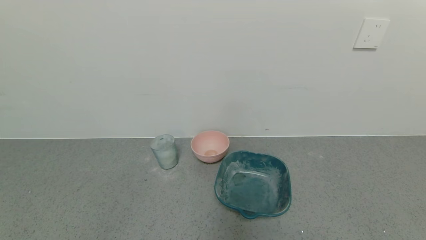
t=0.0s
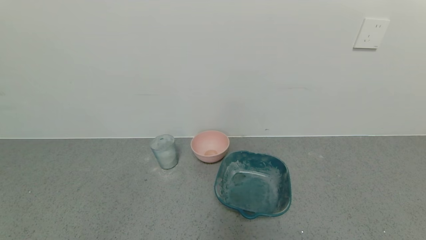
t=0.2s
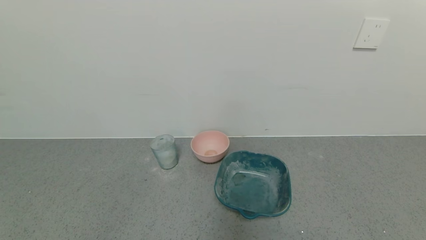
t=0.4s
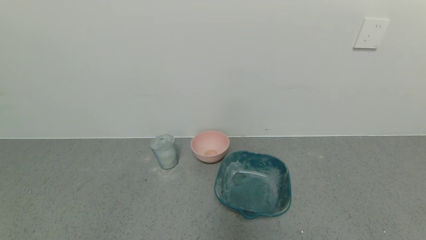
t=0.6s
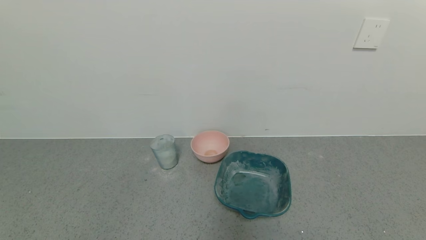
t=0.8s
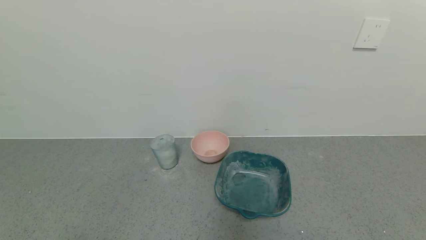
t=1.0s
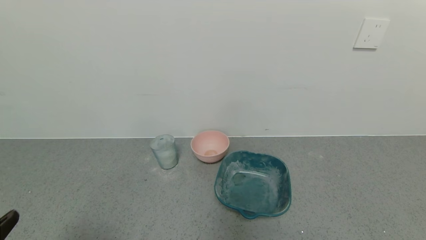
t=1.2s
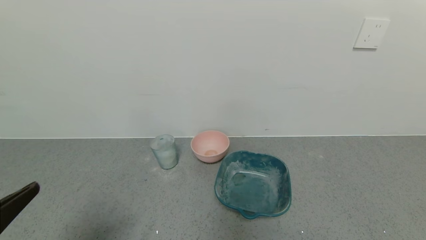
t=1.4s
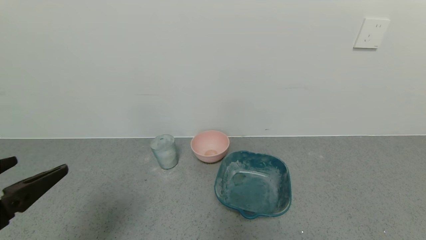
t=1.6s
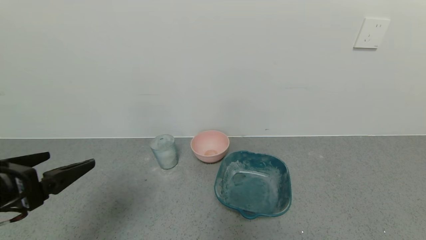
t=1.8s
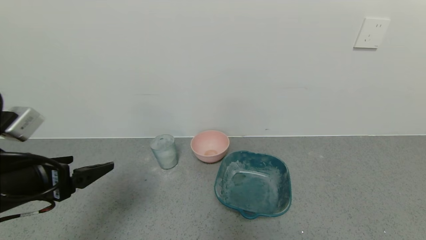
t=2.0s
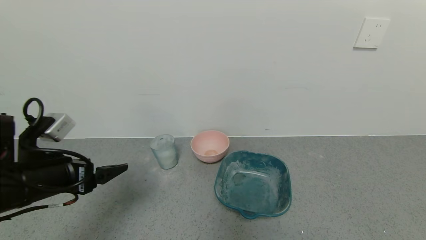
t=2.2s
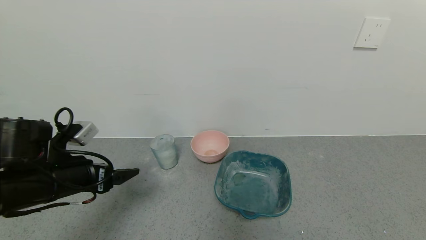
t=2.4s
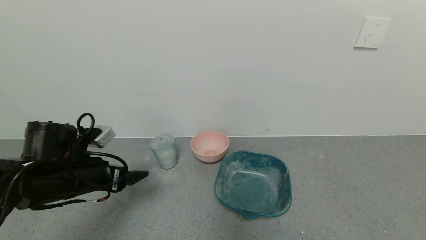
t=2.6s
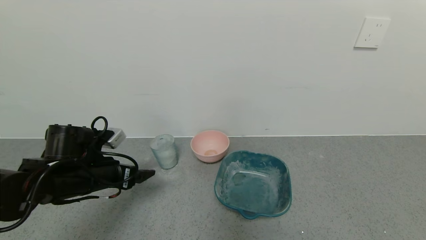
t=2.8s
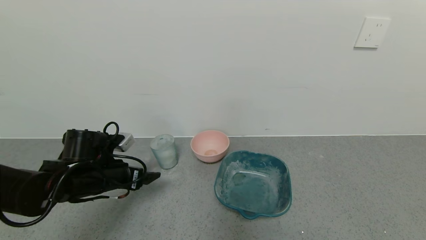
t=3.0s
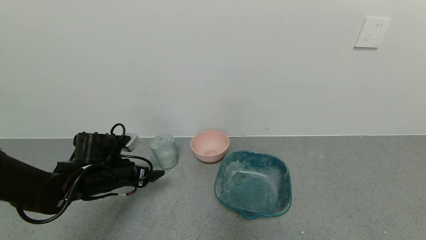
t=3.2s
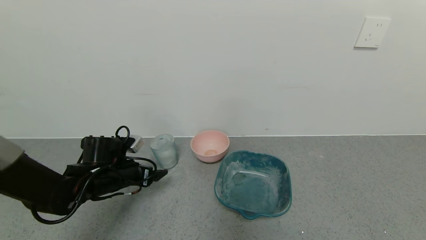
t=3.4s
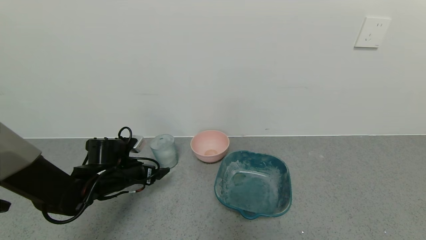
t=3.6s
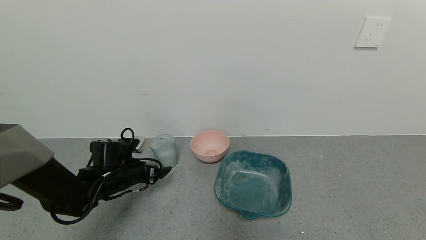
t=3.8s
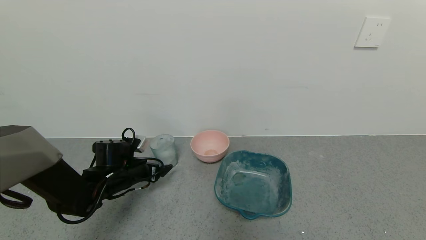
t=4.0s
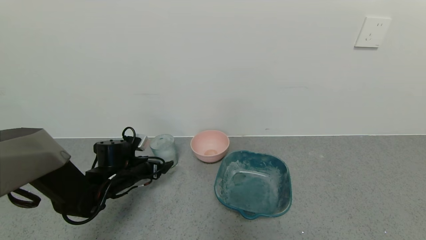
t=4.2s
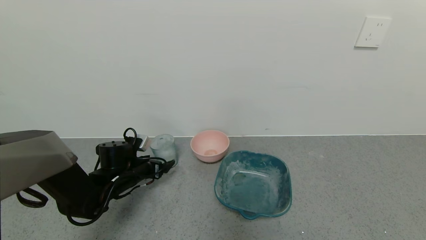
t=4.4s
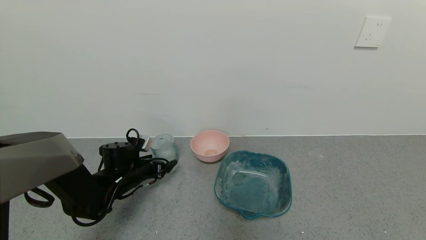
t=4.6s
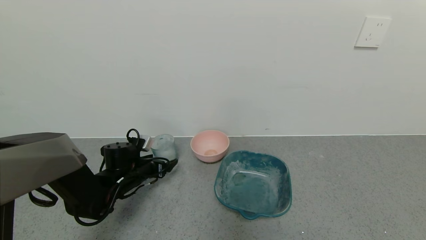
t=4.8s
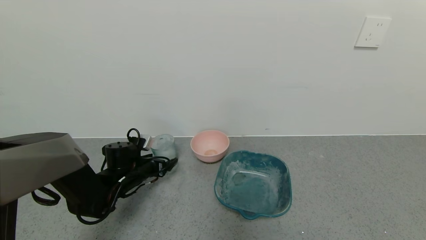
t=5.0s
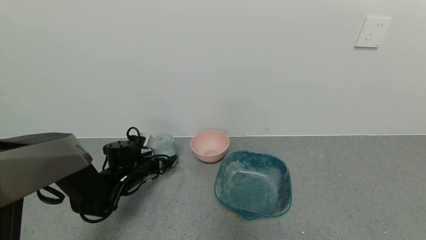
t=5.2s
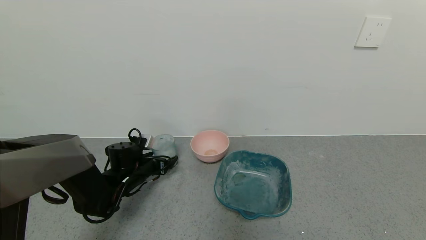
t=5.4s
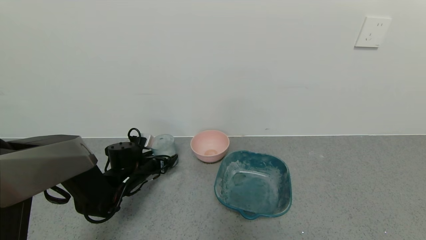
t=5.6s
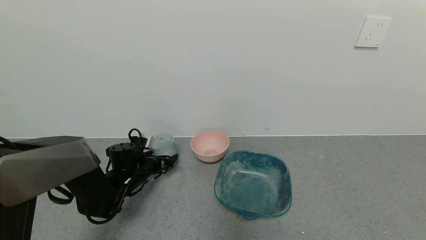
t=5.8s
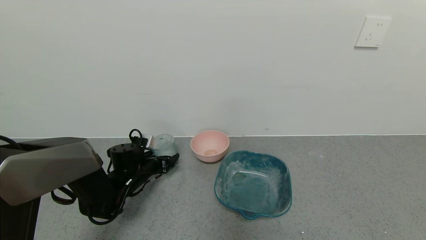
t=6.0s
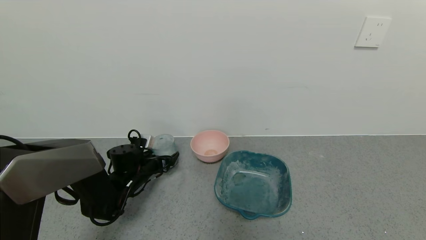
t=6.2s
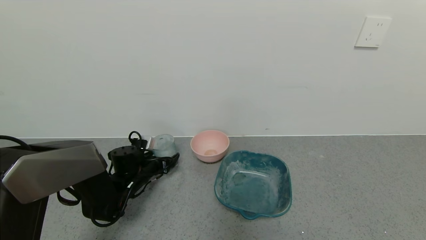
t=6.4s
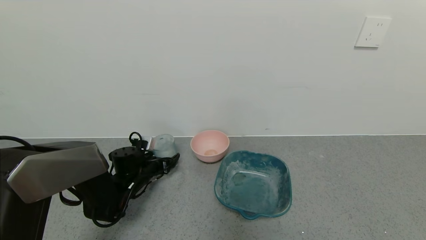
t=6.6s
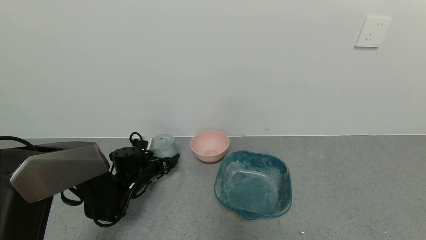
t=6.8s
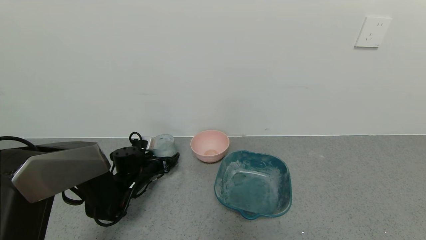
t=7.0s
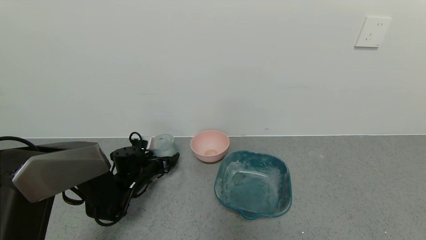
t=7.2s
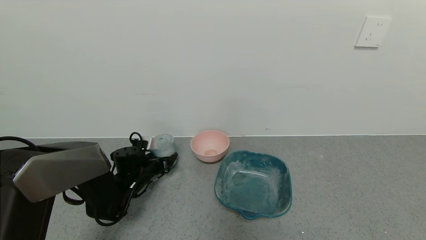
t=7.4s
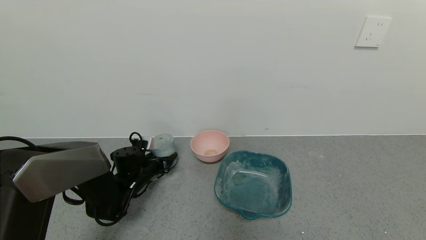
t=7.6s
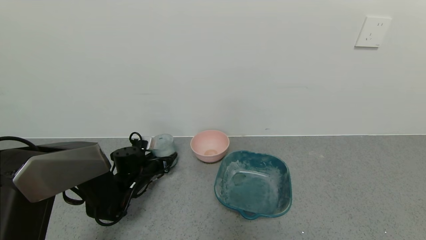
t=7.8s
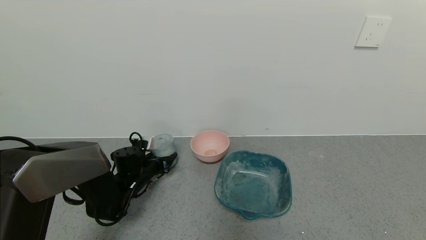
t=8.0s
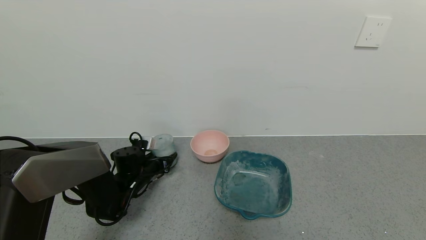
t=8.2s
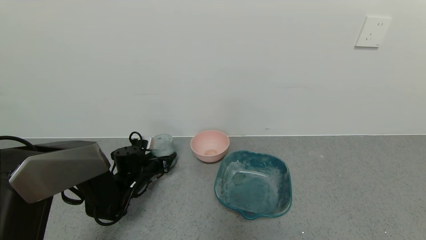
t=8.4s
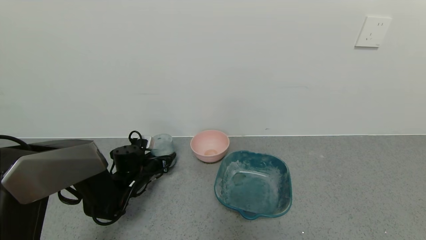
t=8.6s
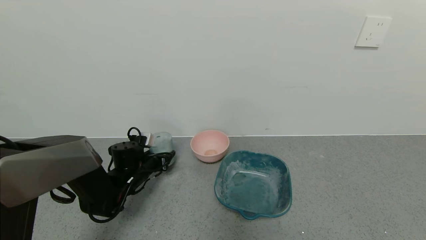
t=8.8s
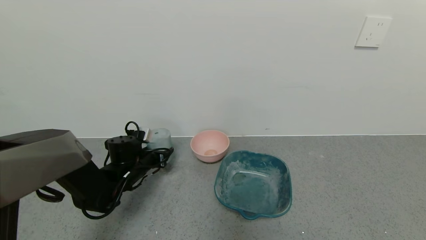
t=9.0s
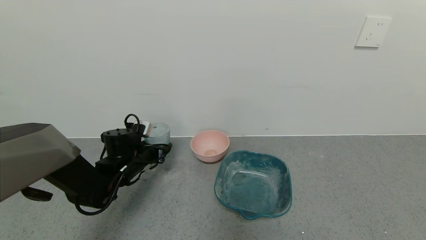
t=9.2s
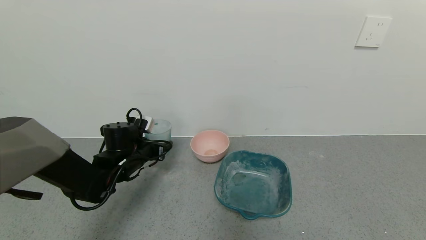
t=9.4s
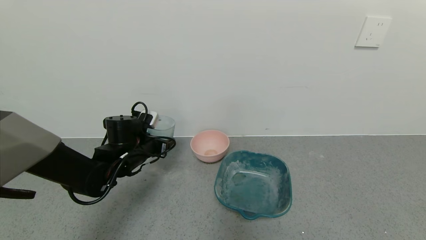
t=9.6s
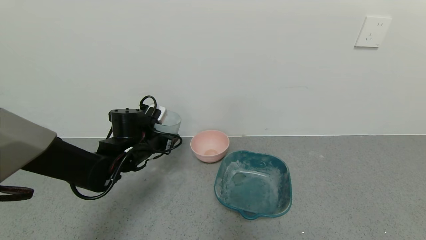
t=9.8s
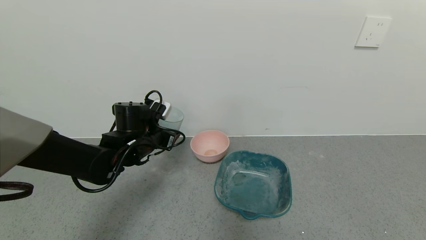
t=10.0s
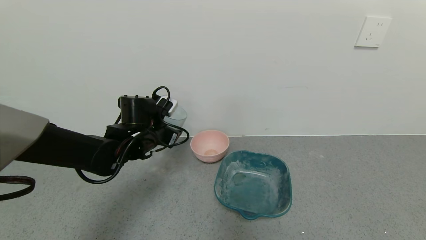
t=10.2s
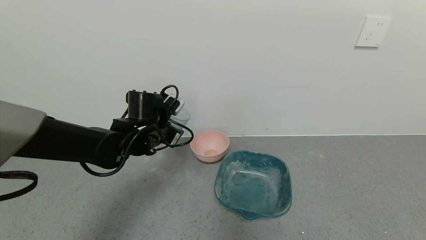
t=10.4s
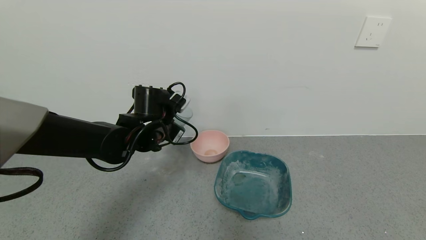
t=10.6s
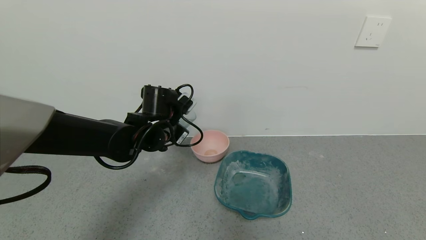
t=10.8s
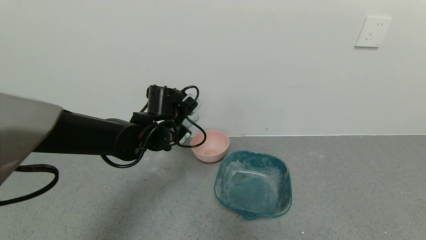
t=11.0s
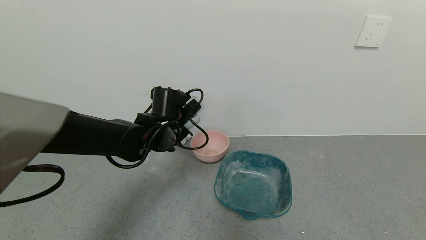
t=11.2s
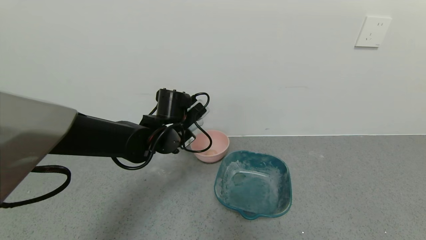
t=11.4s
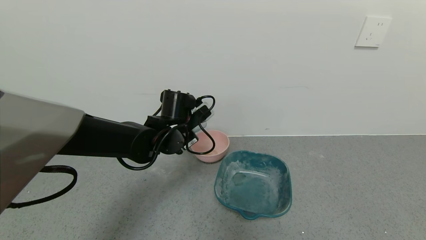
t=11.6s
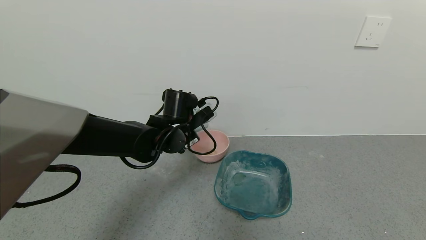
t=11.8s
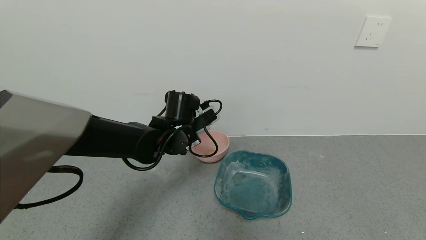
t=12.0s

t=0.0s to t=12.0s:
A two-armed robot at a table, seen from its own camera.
Task of the whole recording: use a gripper to pick up the cup and pour the powder into a bowl or tray.
Step, t=0.0s to t=7.8s: Pick up blue cup filled with coffee powder with left gripper.
t=0.0s to t=1.6s: The left gripper goes roughly 20 cm upward and forward.
t=1.6s to t=3.0s: The left gripper is displaced forward and downward by roughly 25 cm.
t=3.0s to t=4.4s: The left gripper shifts approximately 10 cm downward and forward.
t=4.4s to t=6.0s: The grippers stay close to where they were, moving slightly.
t=6.0s to t=7.6s: The left gripper closes its fingers.
t=7.6s to t=9.0s: The grippers stay close to where they were, moving slightly.
t=9.0s to t=10.4s: The left gripper moves upward and to the right, about 15 cm.
t=10.4s to t=12.0s: The left gripper goes about 5 cm to the right.

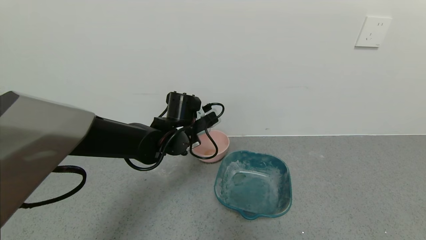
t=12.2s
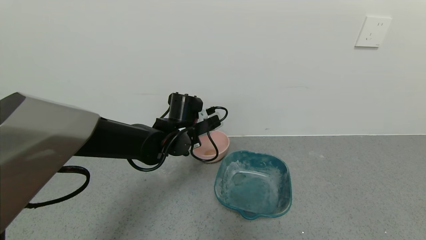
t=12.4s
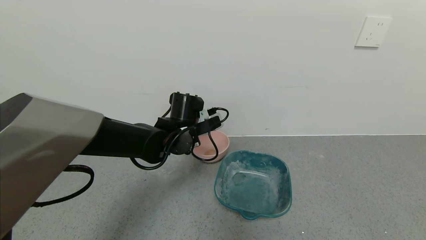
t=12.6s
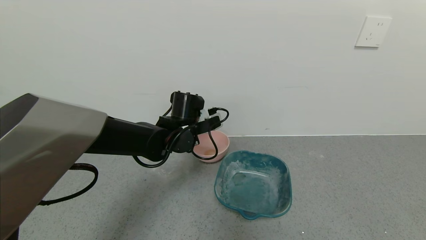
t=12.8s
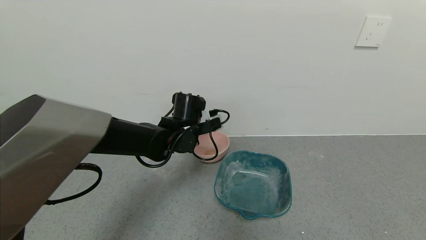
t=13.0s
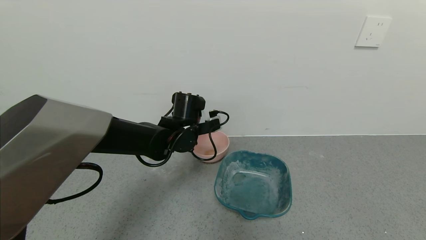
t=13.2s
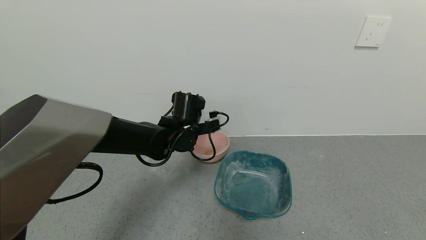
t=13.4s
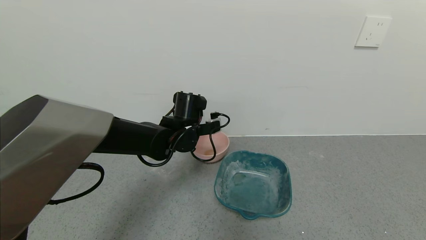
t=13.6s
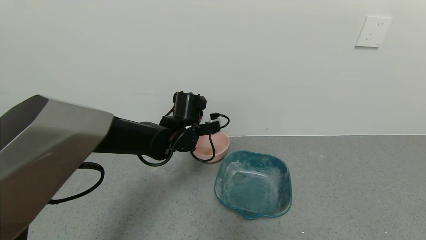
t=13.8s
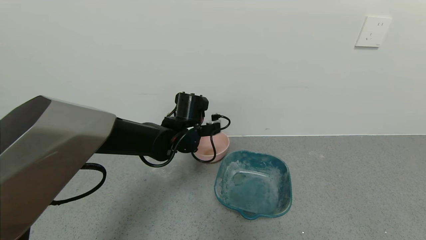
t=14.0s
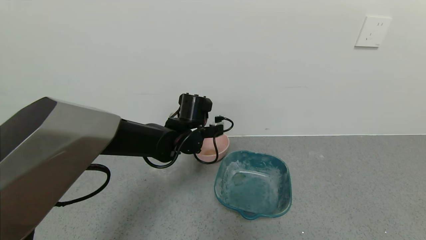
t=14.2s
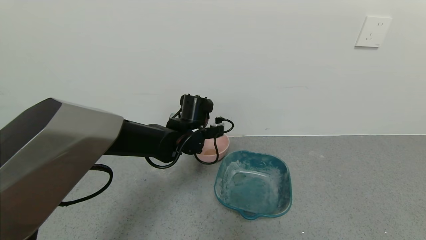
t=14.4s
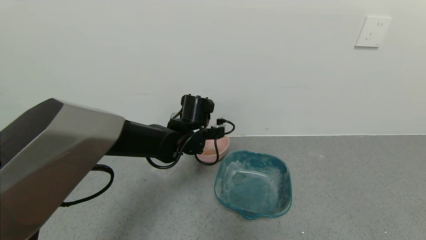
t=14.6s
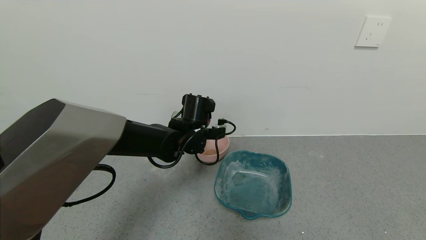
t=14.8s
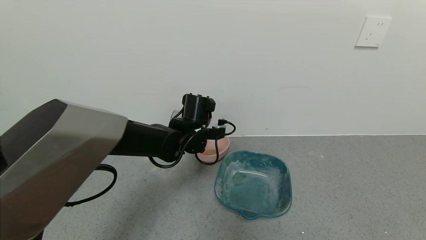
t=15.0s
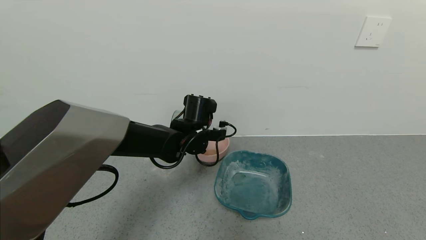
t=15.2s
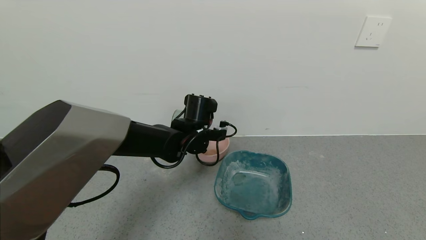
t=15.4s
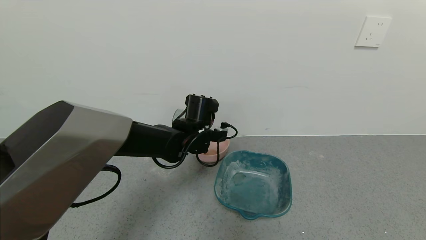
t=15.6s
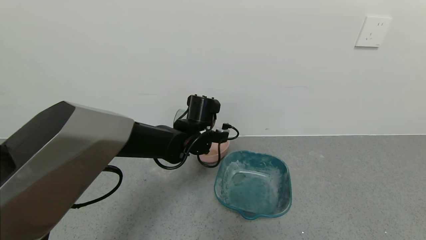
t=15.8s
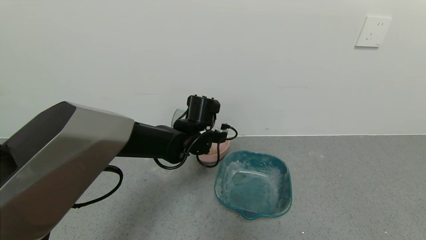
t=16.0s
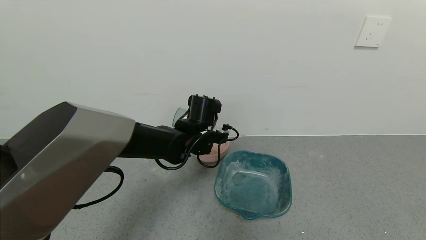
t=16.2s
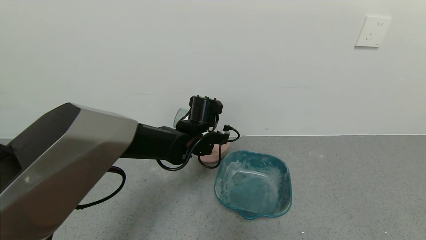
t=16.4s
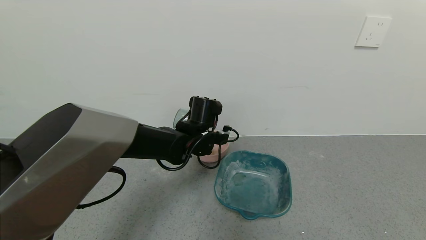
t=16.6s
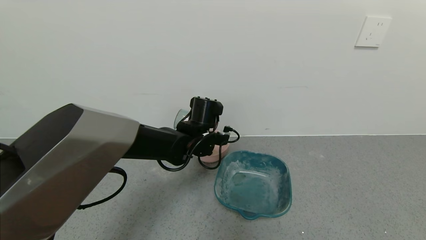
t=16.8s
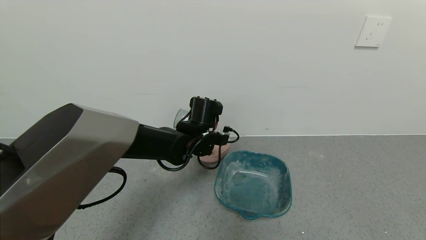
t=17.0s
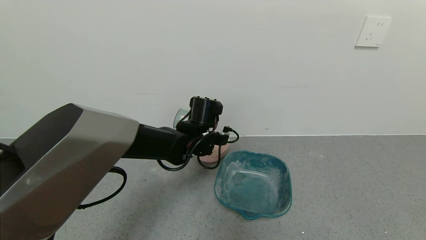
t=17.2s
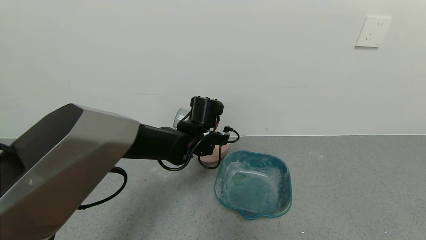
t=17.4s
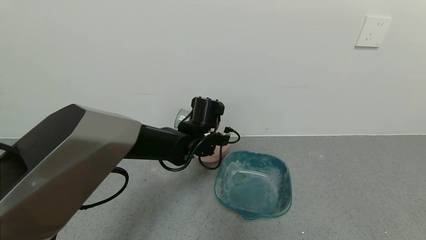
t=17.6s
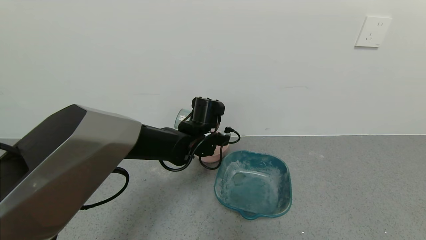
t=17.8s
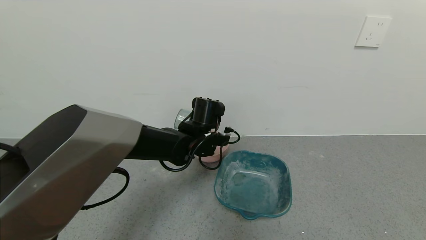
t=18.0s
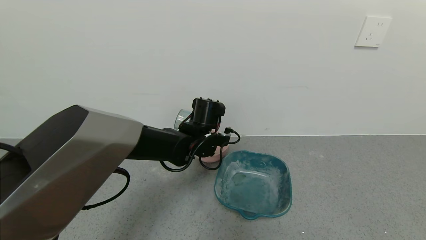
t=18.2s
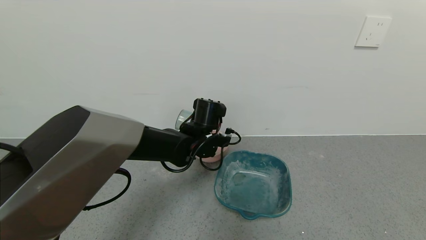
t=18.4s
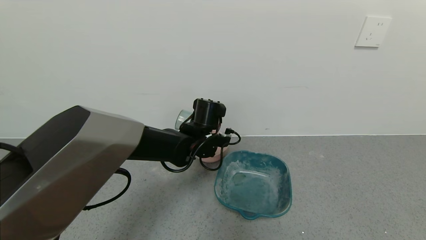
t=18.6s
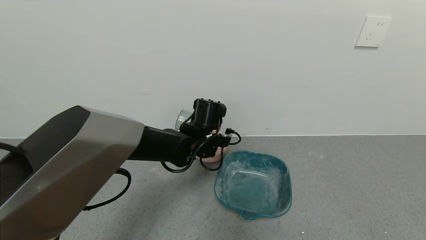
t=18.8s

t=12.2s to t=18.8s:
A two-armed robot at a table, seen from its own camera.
Task of the whole recording: use a gripper to pick up the cup and pour the powder into a bowl or tray.
t=13.8s to t=15.4s: The grippers stay close to where they were, moving slightly.
t=15.4s to t=17.2s: The grippers make only small movements.
t=17.2s to t=18.8s: Both grippers stay put.
